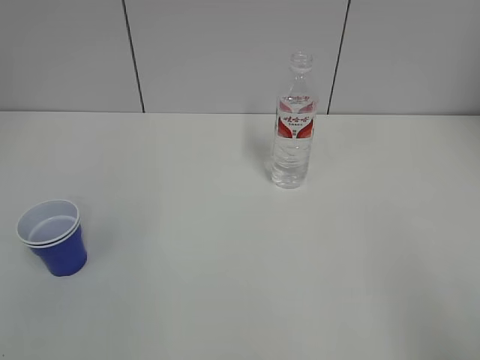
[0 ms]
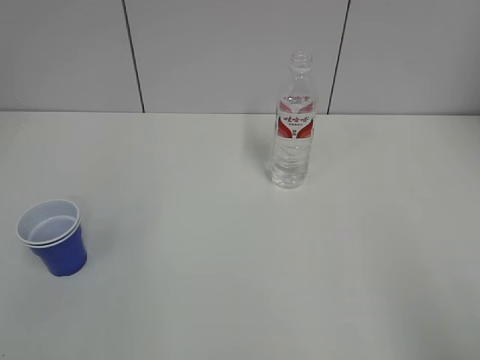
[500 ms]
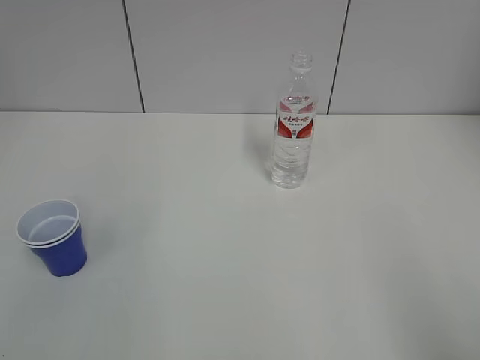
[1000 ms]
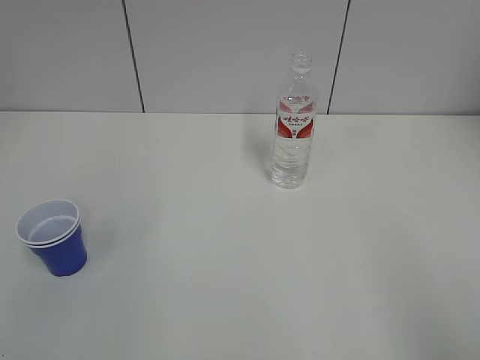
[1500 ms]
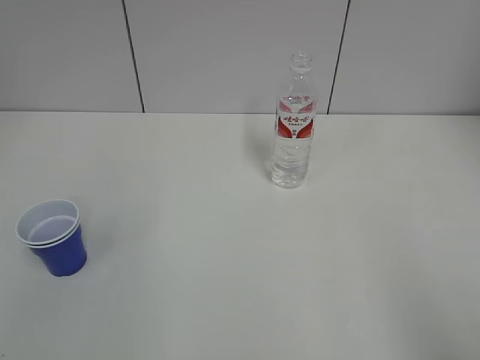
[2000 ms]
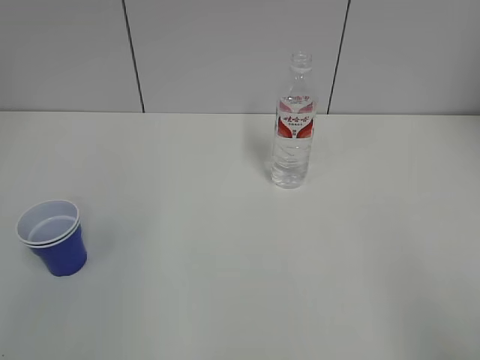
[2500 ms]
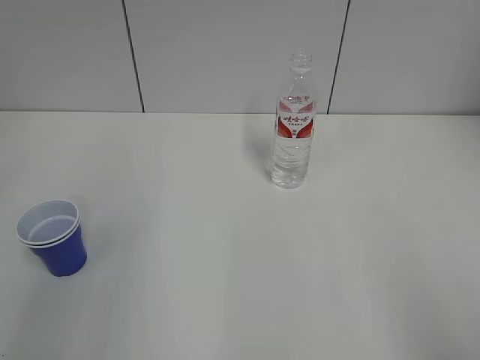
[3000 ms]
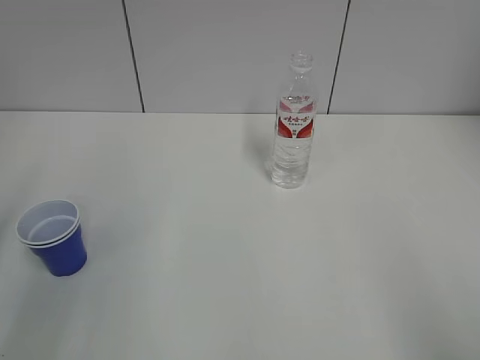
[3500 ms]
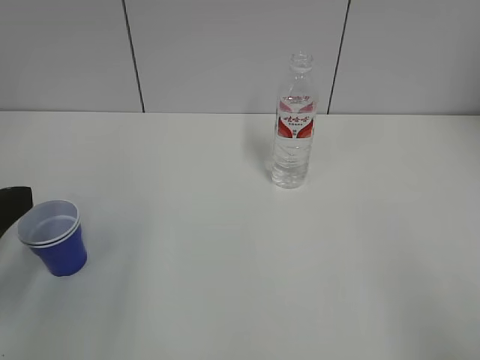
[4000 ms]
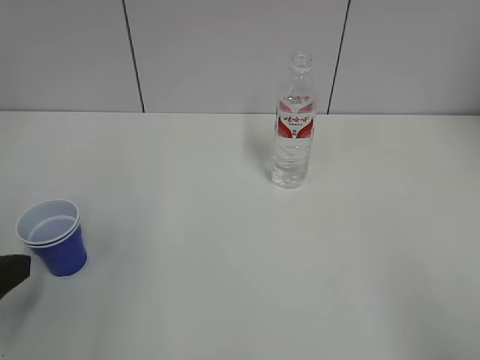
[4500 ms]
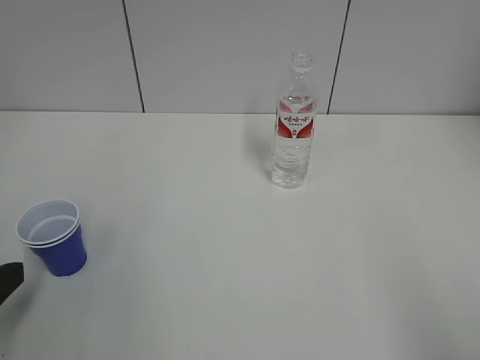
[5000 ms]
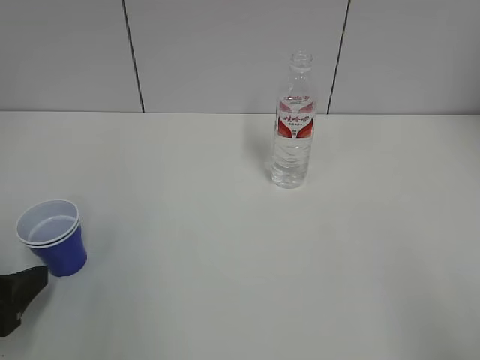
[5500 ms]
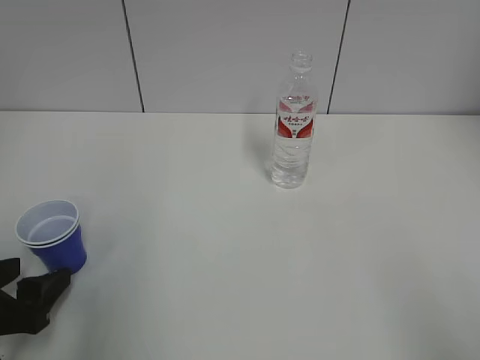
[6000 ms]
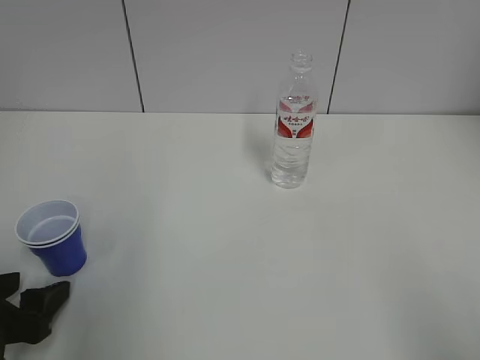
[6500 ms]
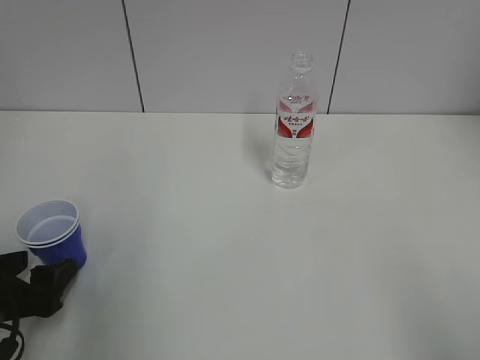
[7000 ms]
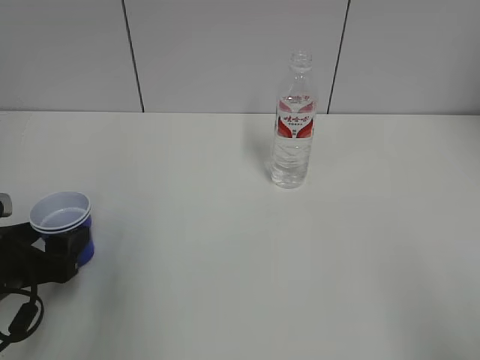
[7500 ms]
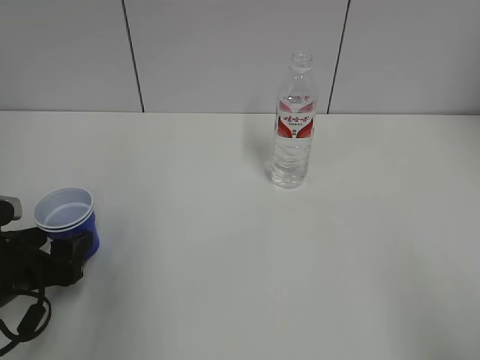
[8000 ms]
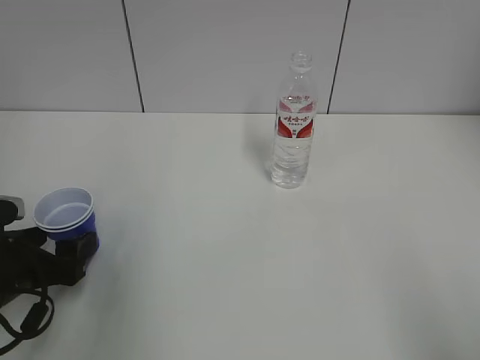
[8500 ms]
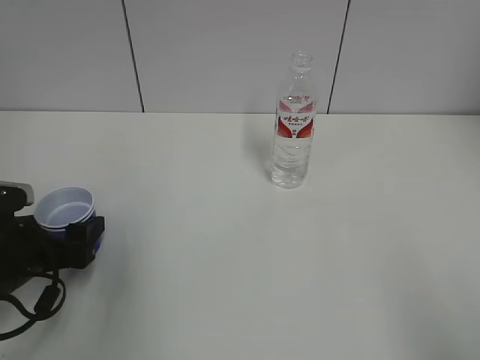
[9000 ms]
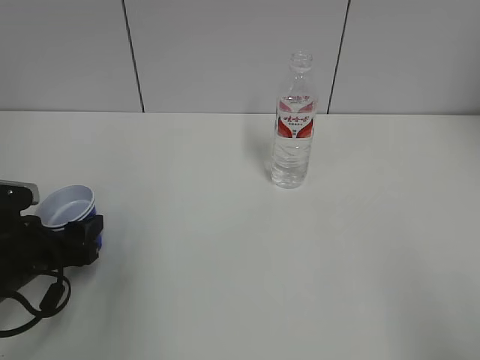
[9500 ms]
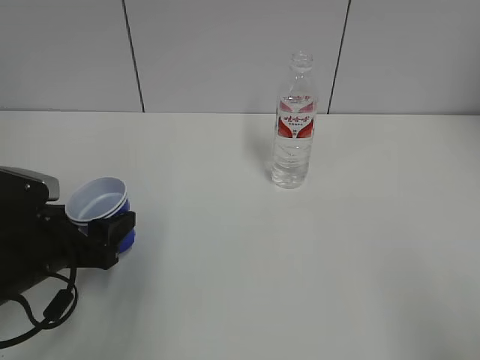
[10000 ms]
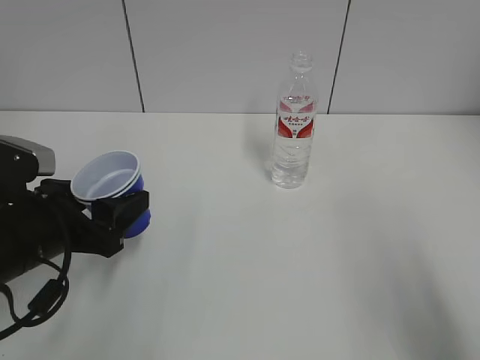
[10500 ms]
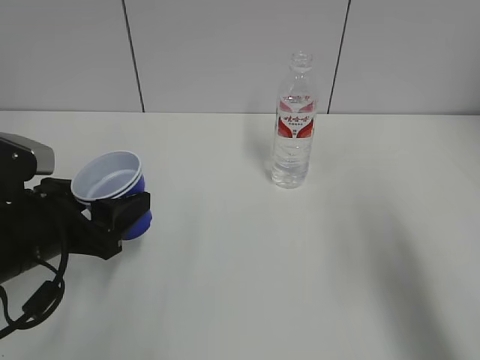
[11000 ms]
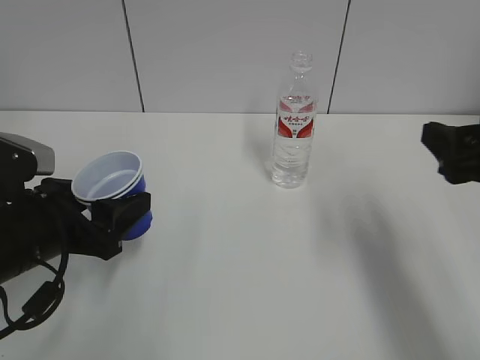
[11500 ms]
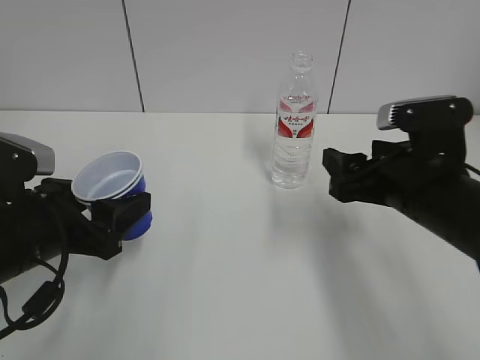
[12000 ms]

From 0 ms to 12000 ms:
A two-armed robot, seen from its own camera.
Step, from 0 ms to 9500 ms: Grab the paper cup with the left hand.
From 2000 ms to 4000 ms: The left gripper goes about 20 cm forward and downward, and opens.
From 4000 ms to 6000 ms: The left gripper goes roughly 10 cm downward.
From 6000 ms to 8000 ms: The left gripper moves forward, some 5 cm.
From 8000 ms to 10000 ms: The grippers make only small movements.
From 10000 ms to 12000 ms: The right gripper goes roughly 30 cm forward and to the left, while the left gripper travels upward by some 5 cm.

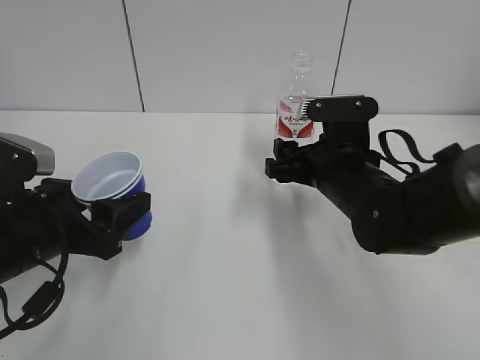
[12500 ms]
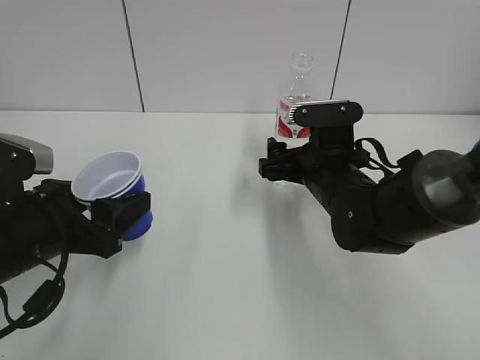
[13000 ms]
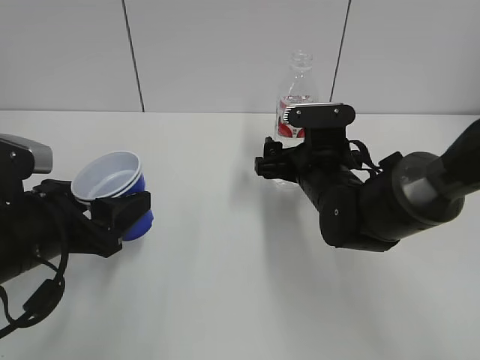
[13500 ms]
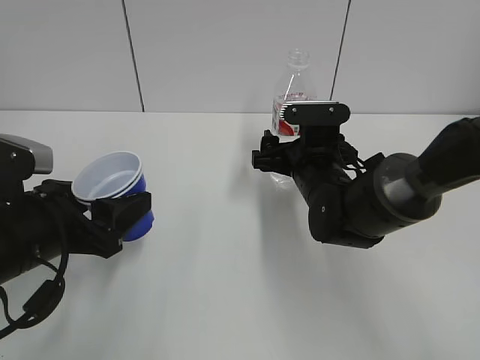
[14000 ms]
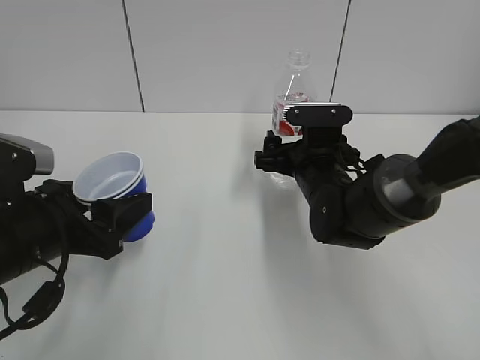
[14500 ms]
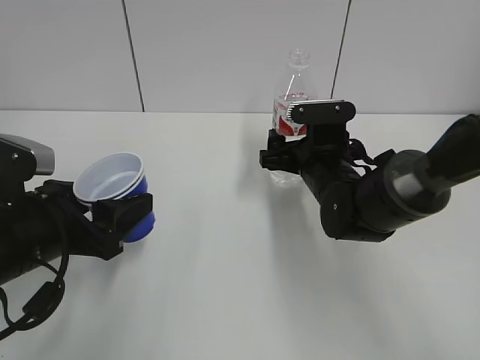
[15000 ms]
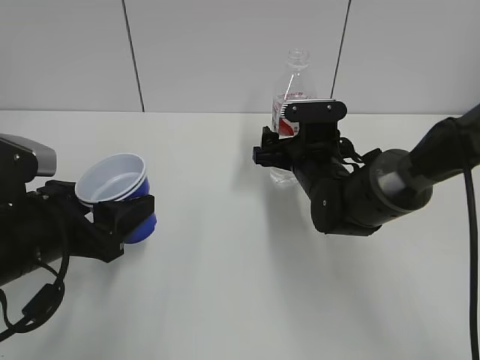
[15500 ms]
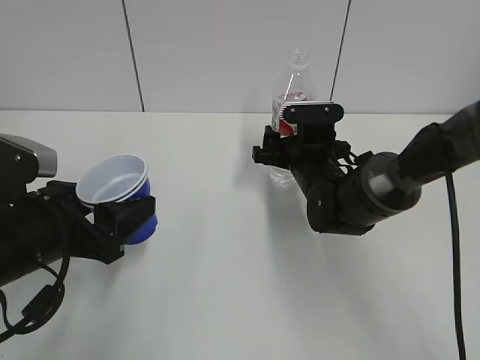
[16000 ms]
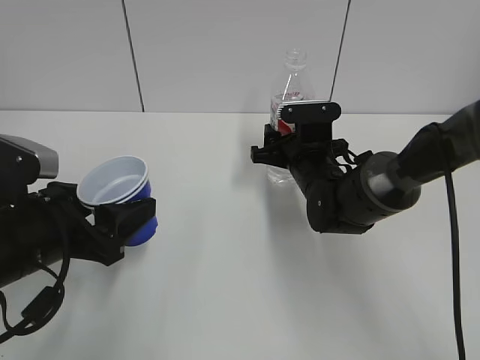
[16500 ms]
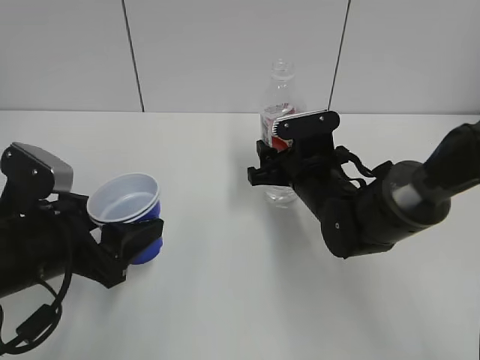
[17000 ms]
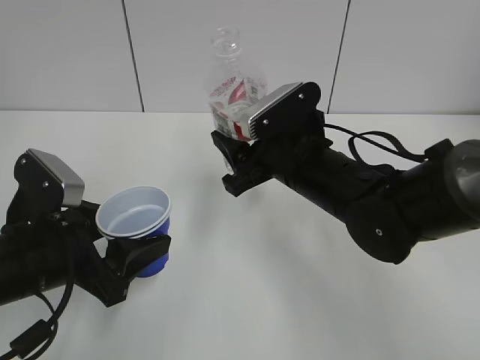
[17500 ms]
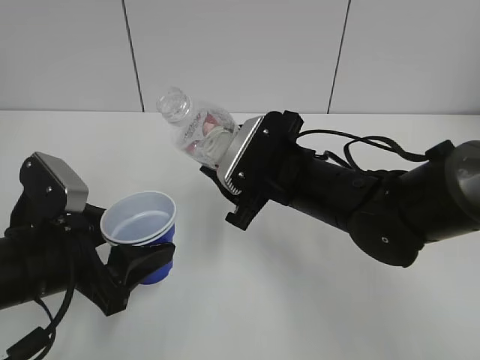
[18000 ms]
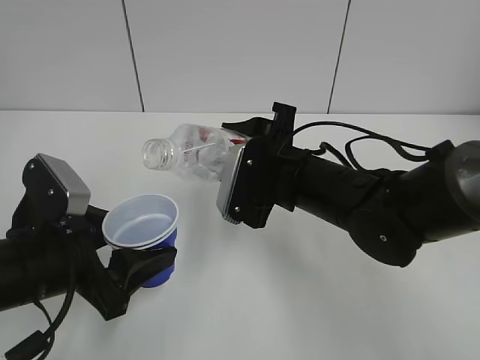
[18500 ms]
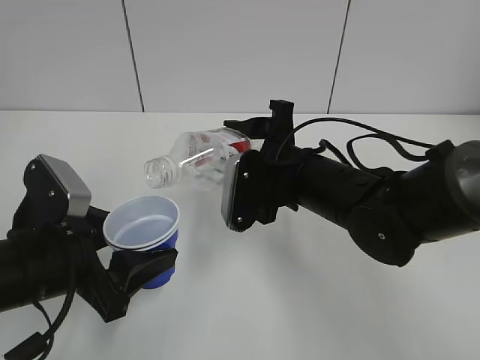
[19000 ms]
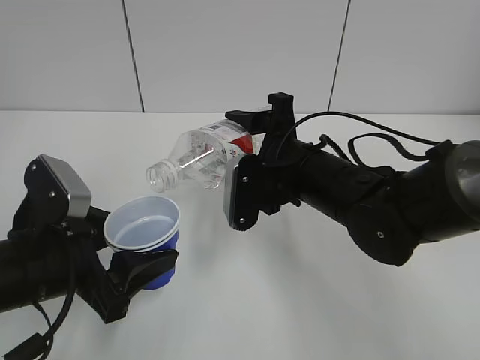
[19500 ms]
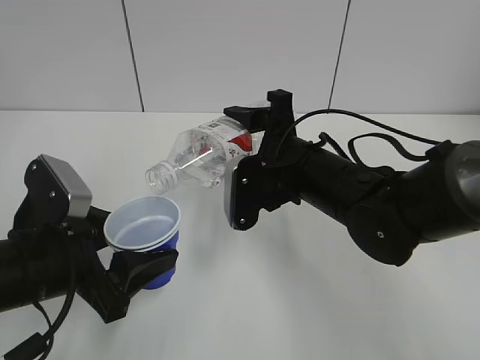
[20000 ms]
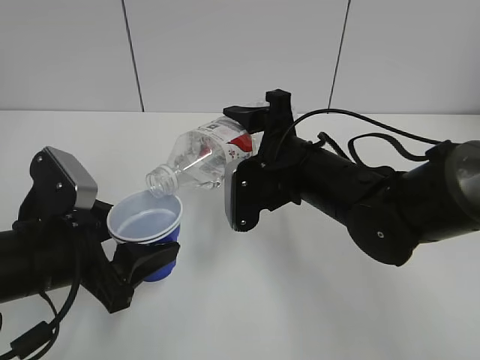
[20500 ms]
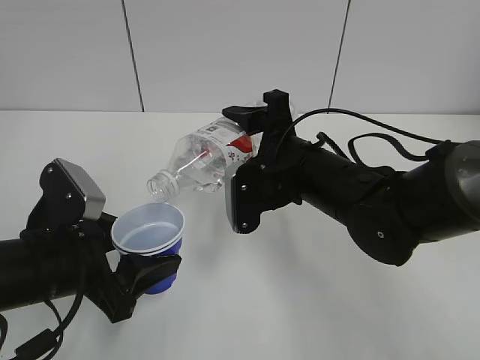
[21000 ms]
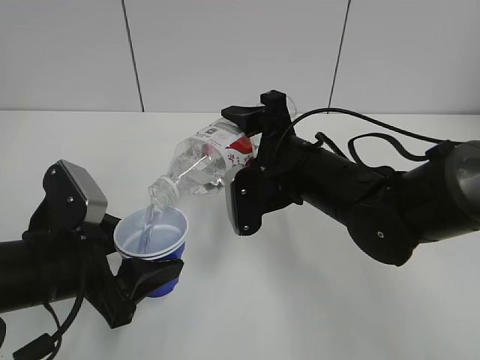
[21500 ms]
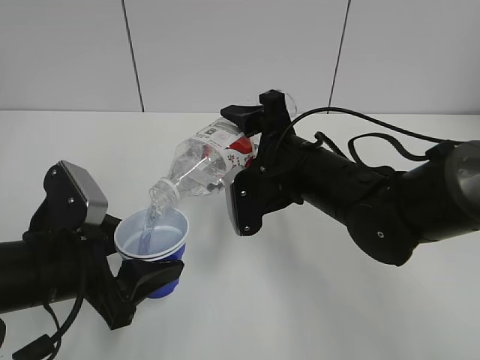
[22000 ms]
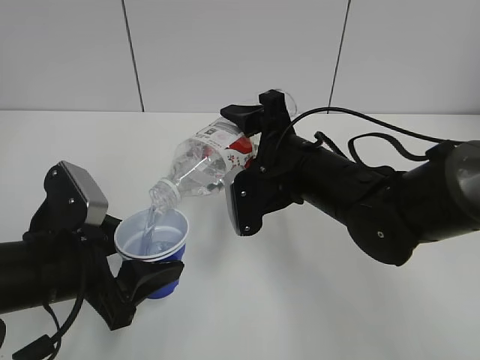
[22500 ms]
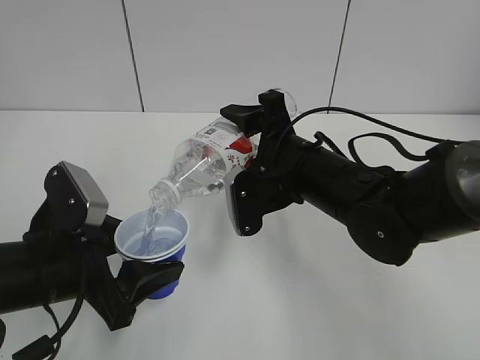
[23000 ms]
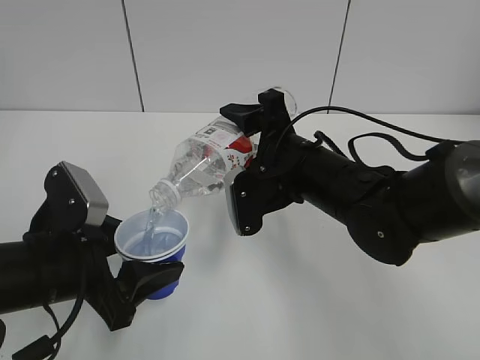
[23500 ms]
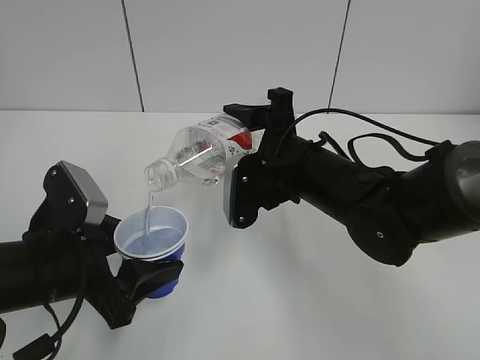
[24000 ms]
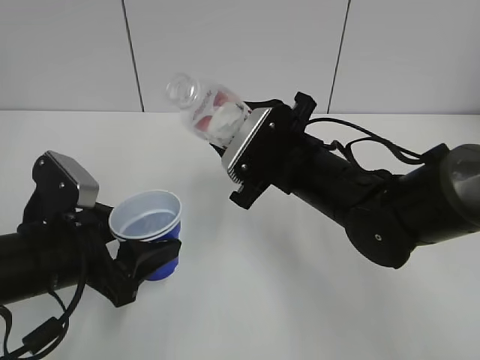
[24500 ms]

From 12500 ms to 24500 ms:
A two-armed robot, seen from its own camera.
Step, from 12500 ms to 16000 ms: Grab the water bottle with the right hand.
Step, from 18500 ms to 24000 ms: Fill water with the left hand.
Step, from 18500 ms to 24000 ms: Pour water with the right hand.
From 12500 ms to 14500 ms: The right gripper changes place by roughly 5 cm, and opens.
From 14500 ms to 16500 ms: The right gripper closes.
From 16500 ms to 18500 ms: The right gripper travels backward and upward by about 10 cm.
From 20500 ms to 22500 ms: There are only small adjustments of the grippers.

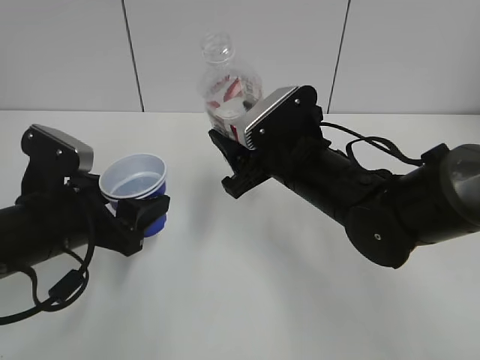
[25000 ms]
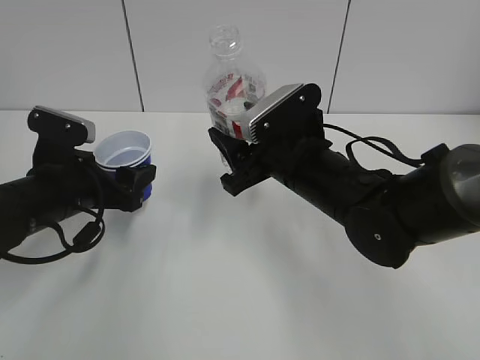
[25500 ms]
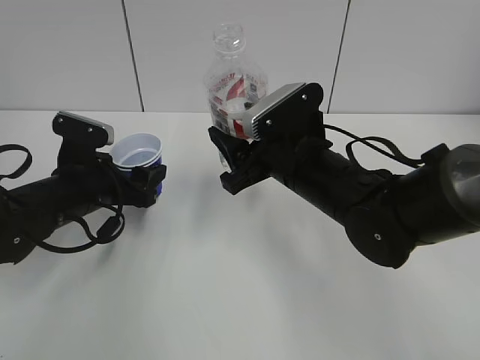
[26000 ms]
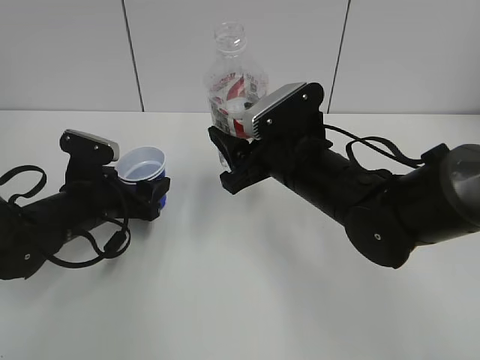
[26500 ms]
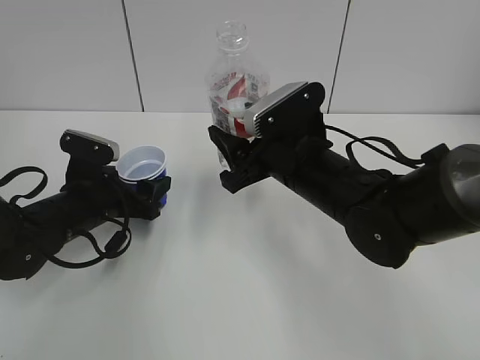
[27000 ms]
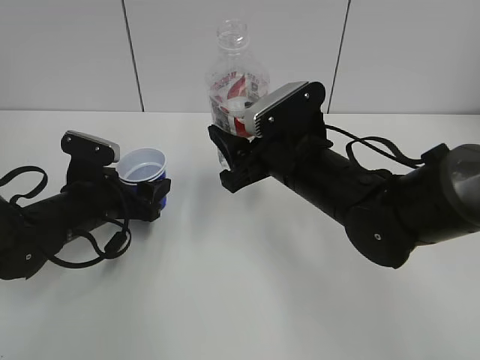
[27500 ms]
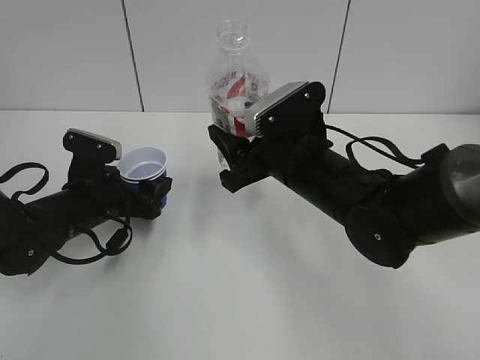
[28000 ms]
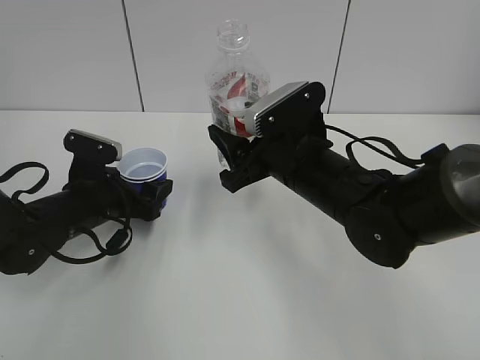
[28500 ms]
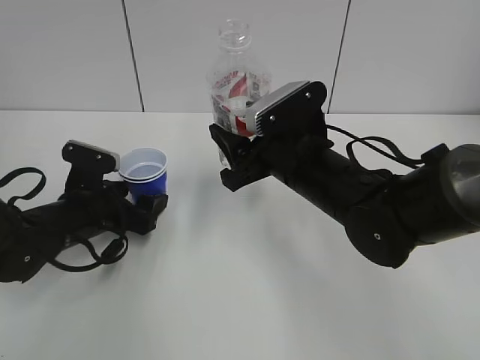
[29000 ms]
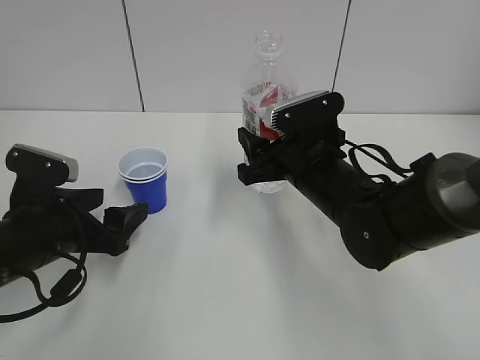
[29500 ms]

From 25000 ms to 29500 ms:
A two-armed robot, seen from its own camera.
Step, from 26500 ms to 28500 ms: Place the paper cup with the left hand.
From 25000 ms to 27000 ms: The left gripper is displaced forward and downward by some 10 cm.
From 27000 ms to 29500 ms: The left gripper shifts some 10 cm backward.
